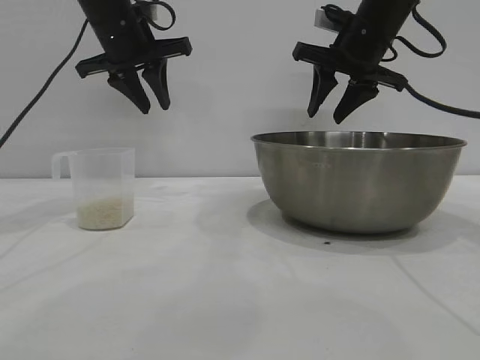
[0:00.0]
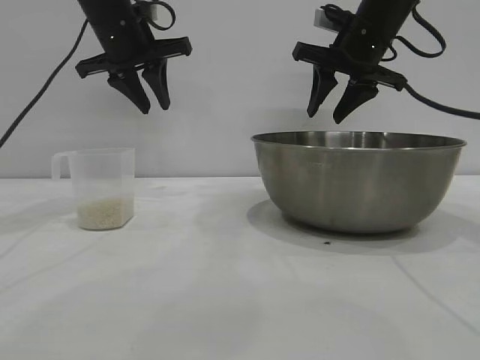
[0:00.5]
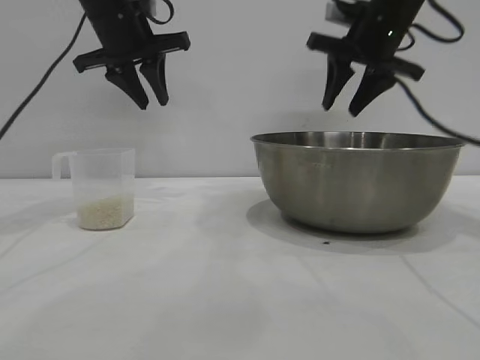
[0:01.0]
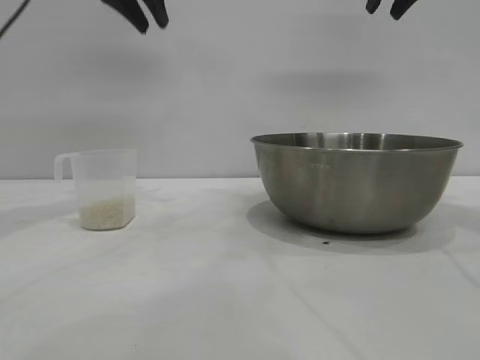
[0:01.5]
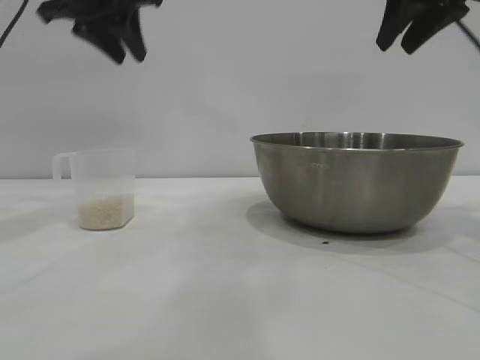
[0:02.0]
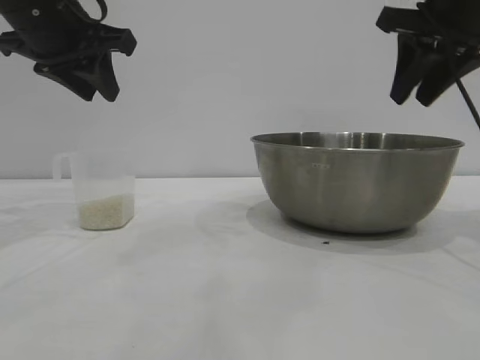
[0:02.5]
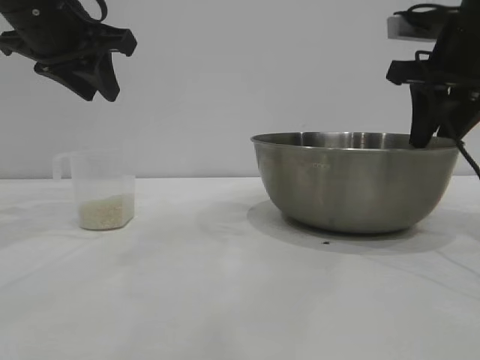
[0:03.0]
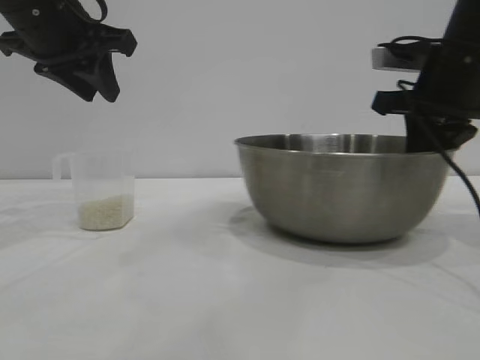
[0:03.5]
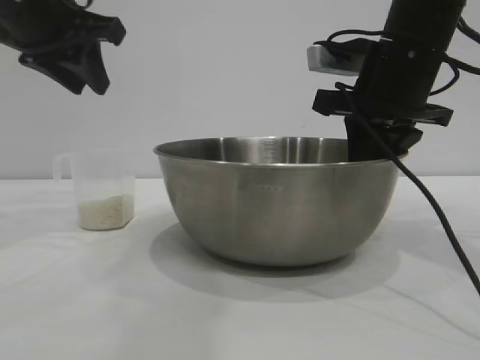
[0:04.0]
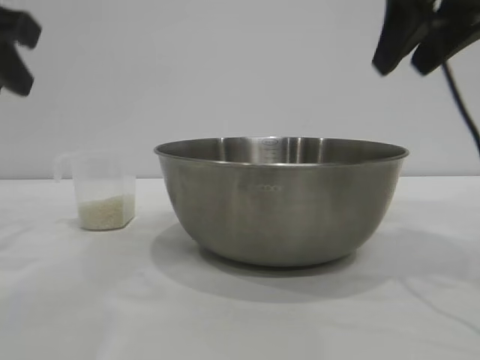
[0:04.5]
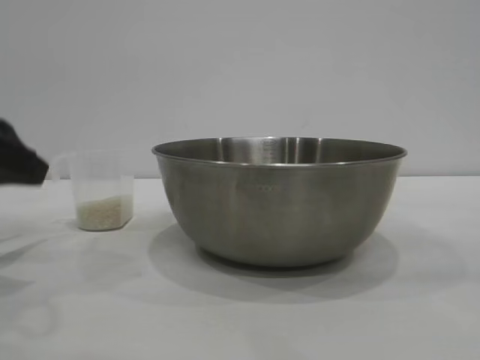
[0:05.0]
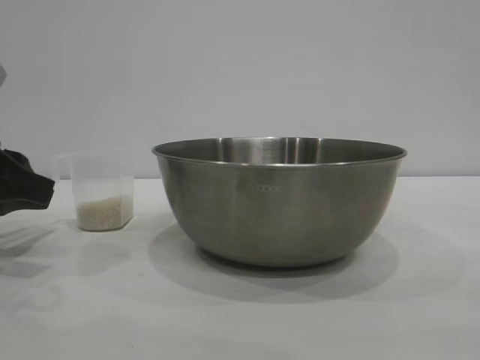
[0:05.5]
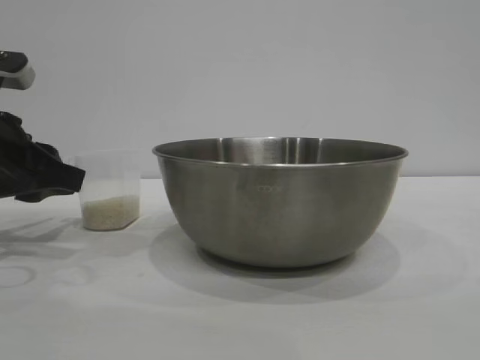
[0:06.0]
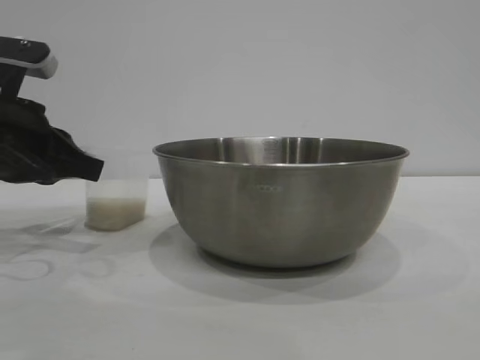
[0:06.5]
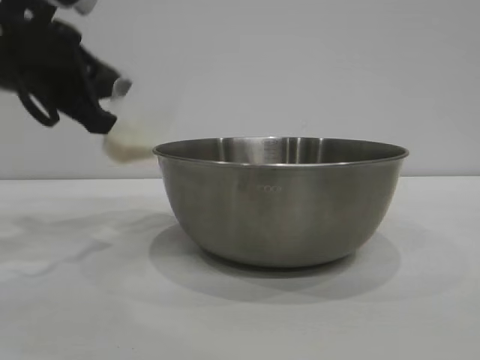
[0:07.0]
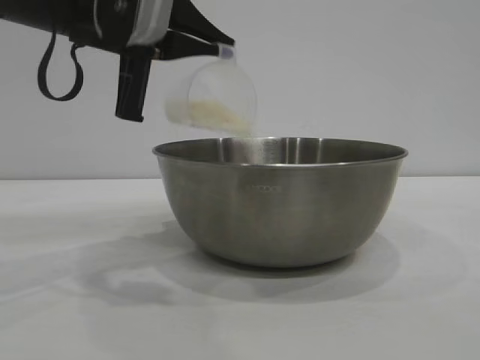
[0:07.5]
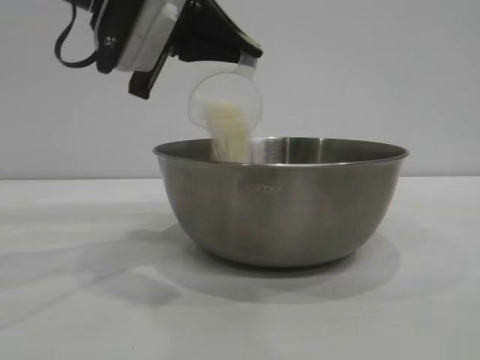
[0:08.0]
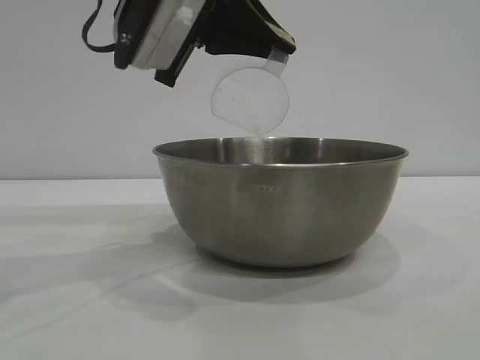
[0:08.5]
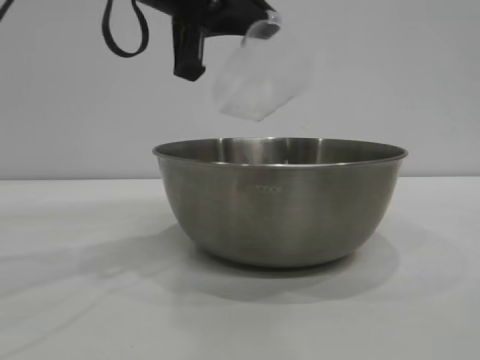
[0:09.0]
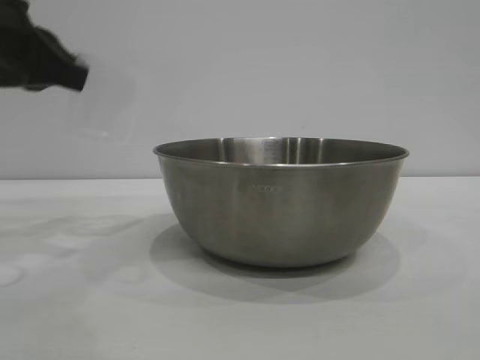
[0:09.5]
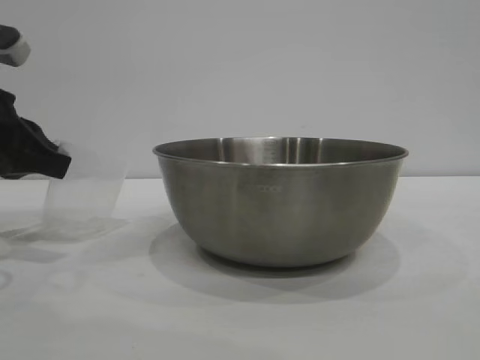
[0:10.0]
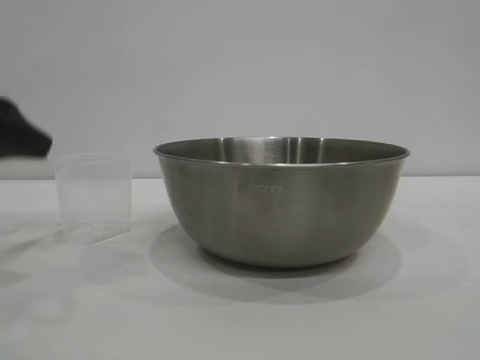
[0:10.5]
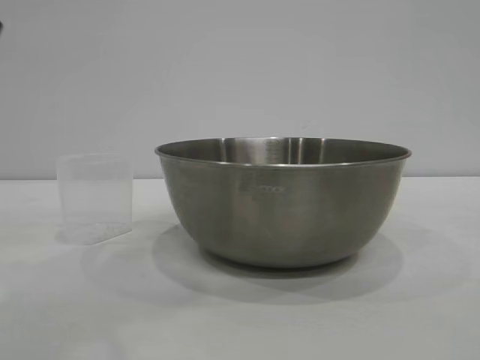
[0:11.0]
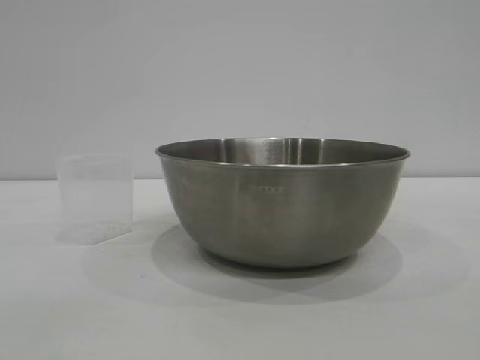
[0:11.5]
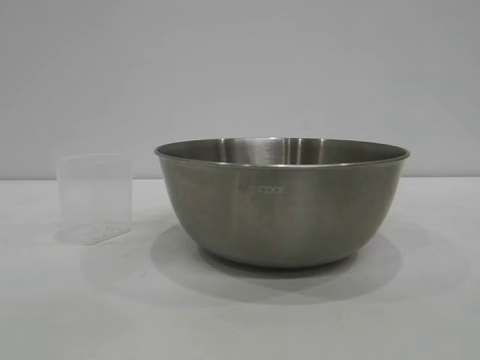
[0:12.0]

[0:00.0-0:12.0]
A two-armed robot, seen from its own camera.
Task of the whole recording: the right gripper grasp the rice container and place it in the center of the table, the left gripper grasp the rice scoop and pour the rice into the rice container.
Step, 0:00.0 to 0:04.0: Move the bowl to the center of view with the right gripper.
Step, 0:04.5 to 0:06.5: Pick up the cup with rice in it with the left gripper.
Step, 0:07.0 to 0:09.0: Pour the rice from the cup into the bowl with the left gripper.
Step, 0:09.5 to 0:10.5: Place the cup on the table with the left gripper.
